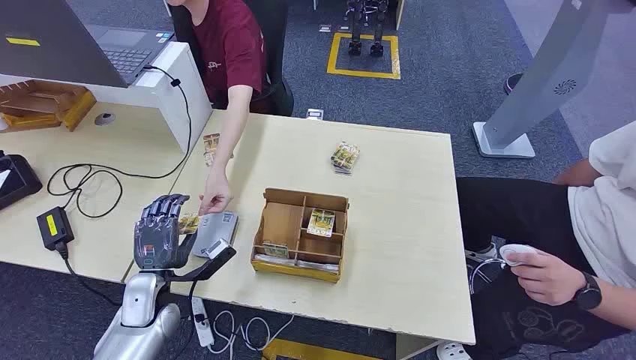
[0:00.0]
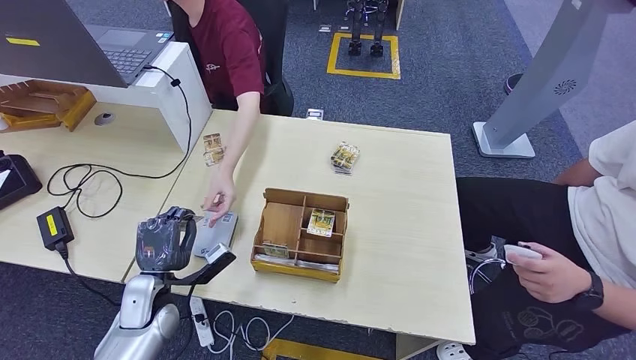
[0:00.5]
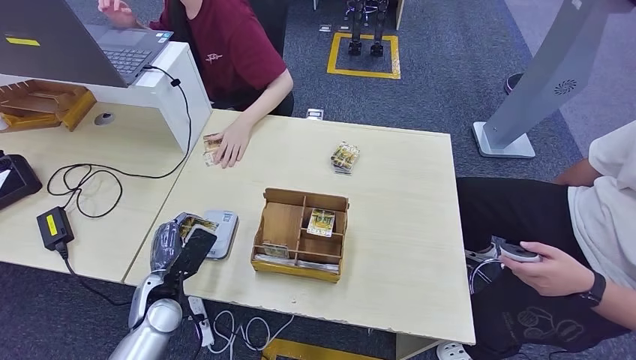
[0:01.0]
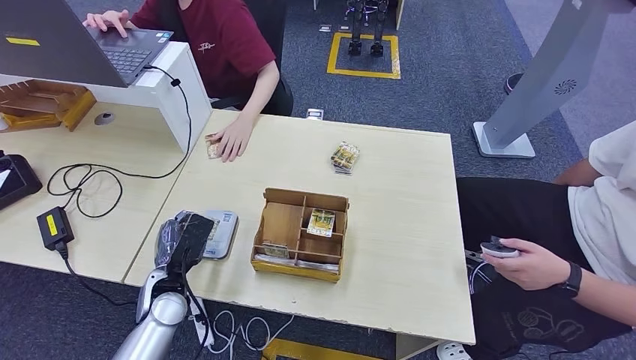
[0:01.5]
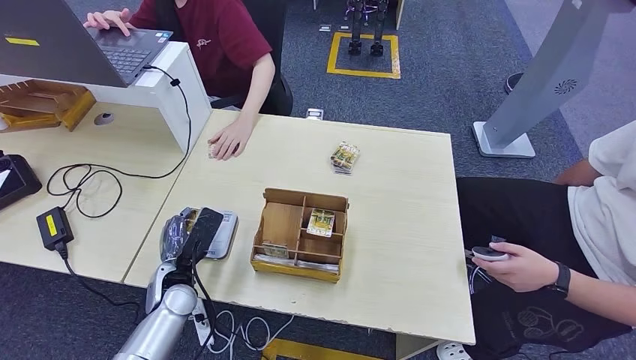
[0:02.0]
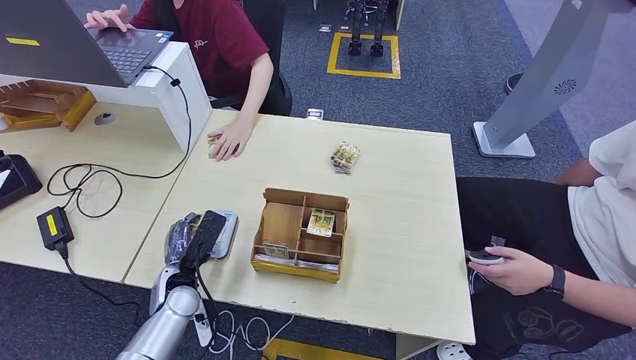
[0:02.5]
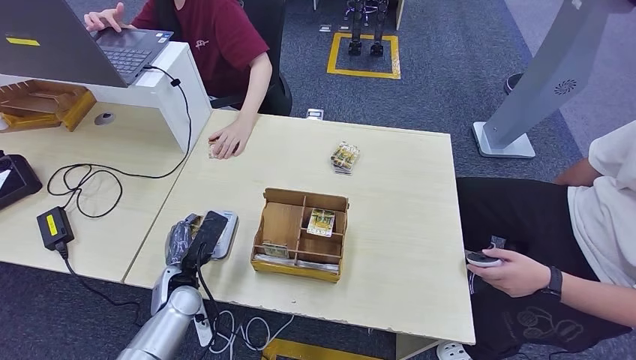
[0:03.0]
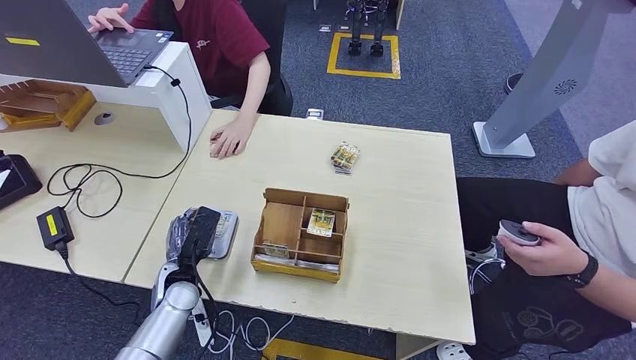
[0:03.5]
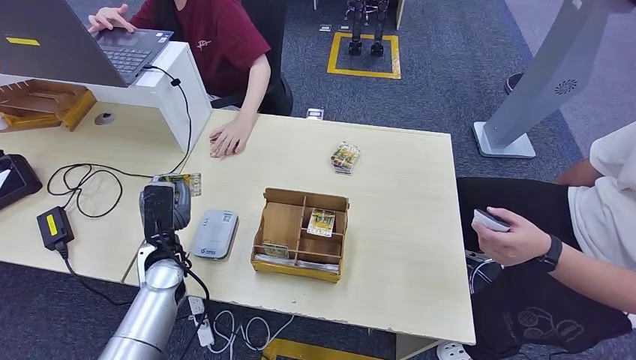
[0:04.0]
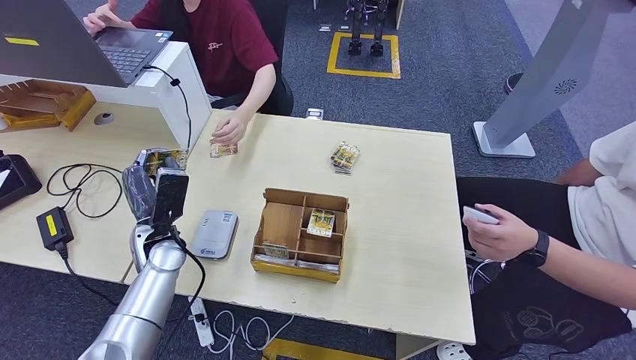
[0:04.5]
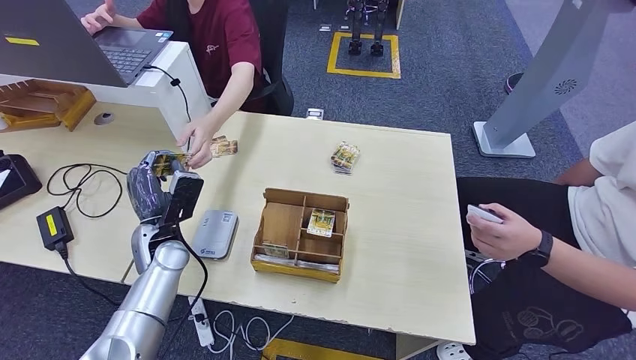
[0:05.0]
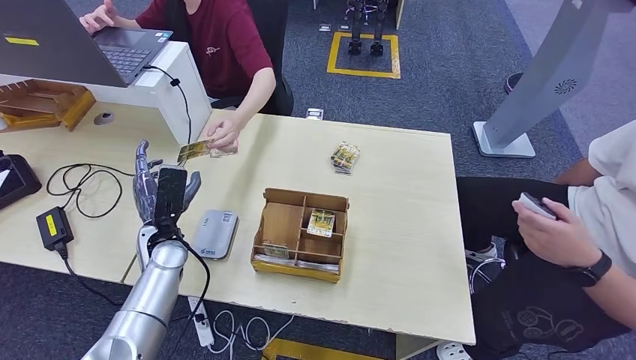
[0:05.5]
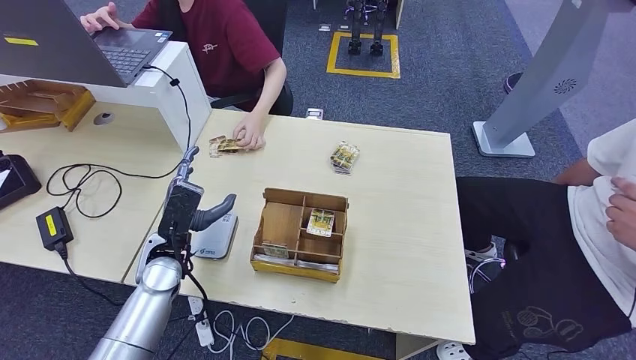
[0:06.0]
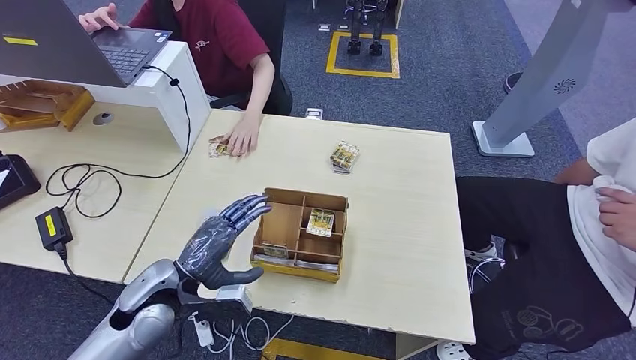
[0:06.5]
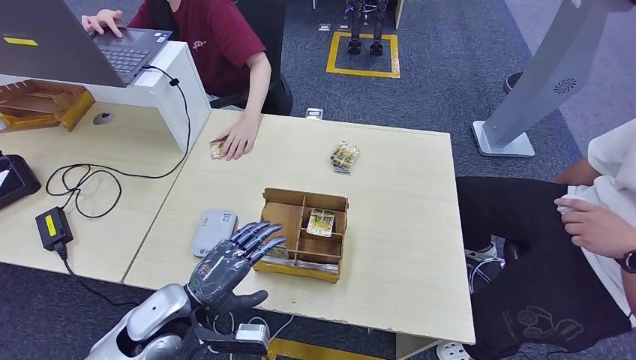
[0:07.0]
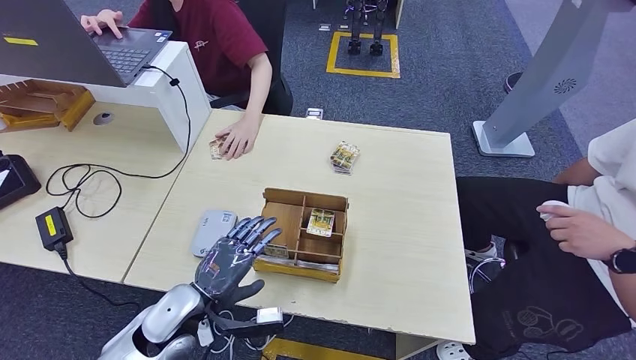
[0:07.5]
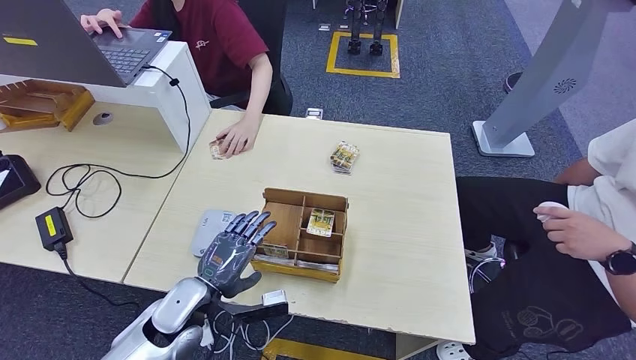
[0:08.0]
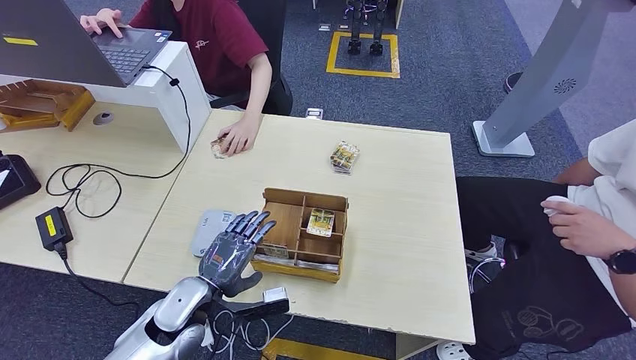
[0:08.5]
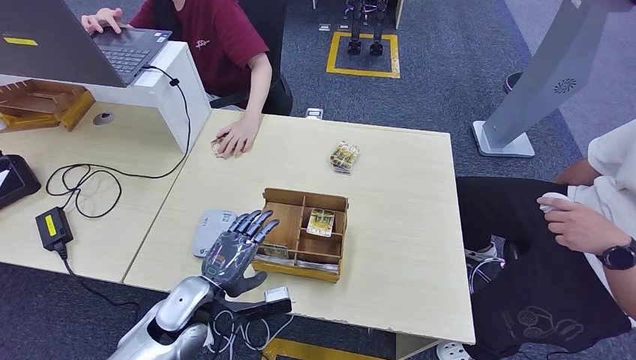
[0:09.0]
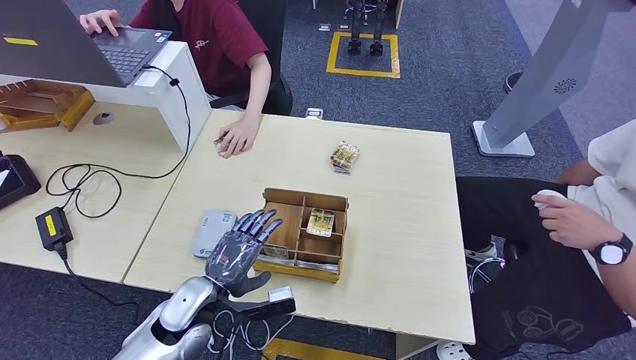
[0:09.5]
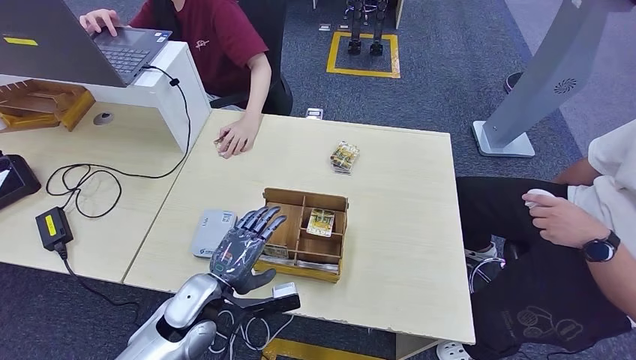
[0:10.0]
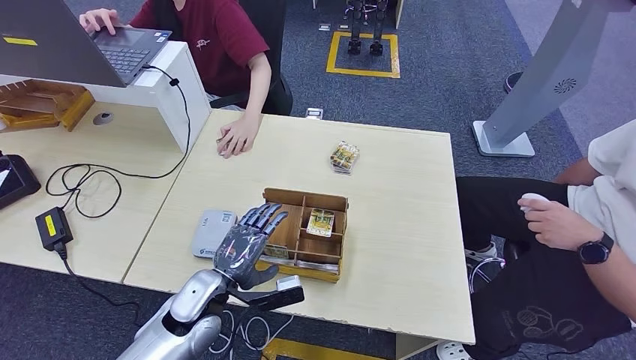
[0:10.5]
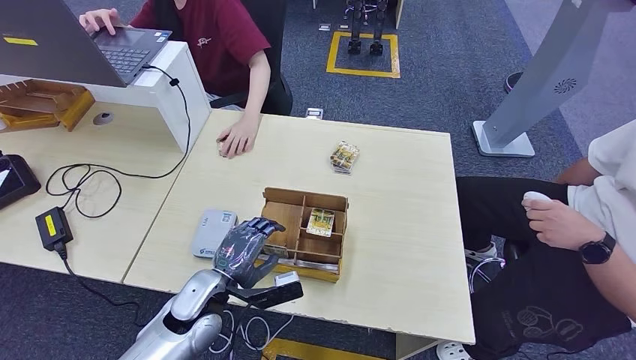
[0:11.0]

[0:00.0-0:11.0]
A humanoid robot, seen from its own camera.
Step, 0:00.0 to 0:00.5: Take the ID card from the person's hand.
Step, 0:01.0 to 0:03.0: Place the ID card on the card reader.
Step, 0:03.5 to 0:05.5: Hand the ID card to the person.
0:02.0 to 0:03.5: The hands stay close to where they were, moving slightly.
0:03.5 to 0:05.5: The left hand goes approximately 10 cm upward and forward.
0:05.5 to 0:07.5: The left hand is displaced backward and to the right by about 15 cm.
0:07.5 to 0:11.0: There are only small adjustments of the hands.

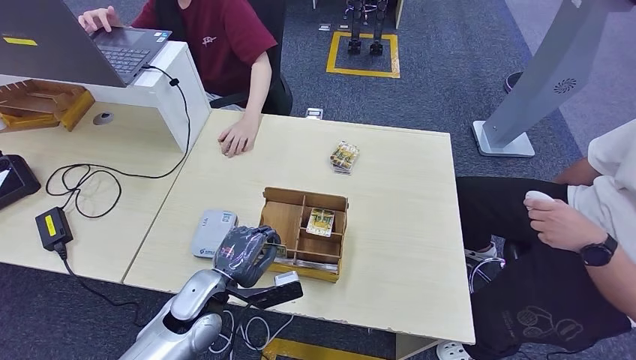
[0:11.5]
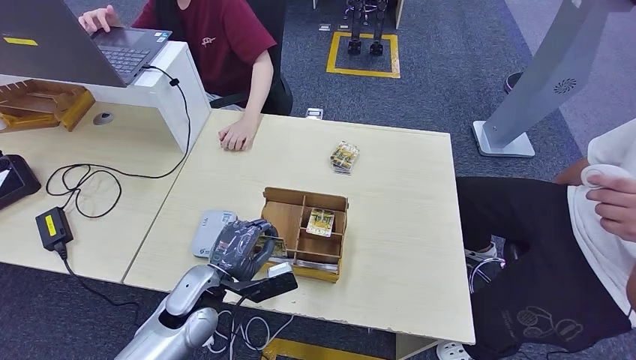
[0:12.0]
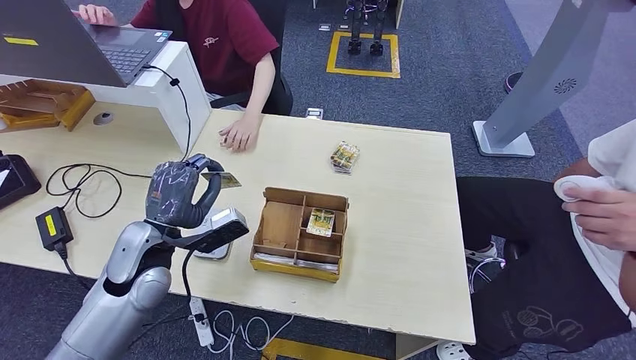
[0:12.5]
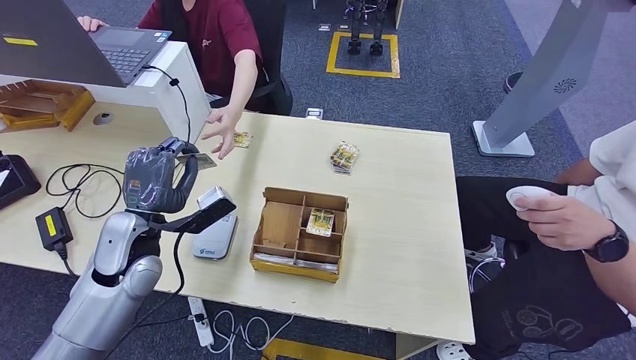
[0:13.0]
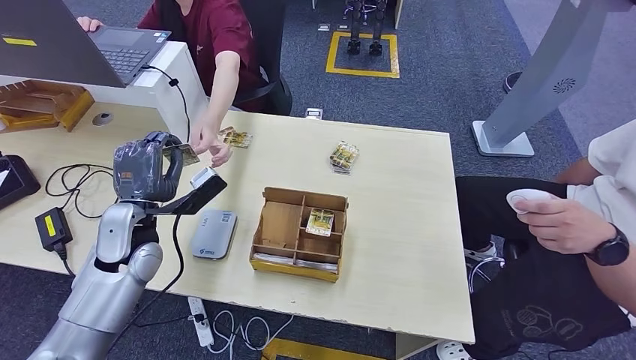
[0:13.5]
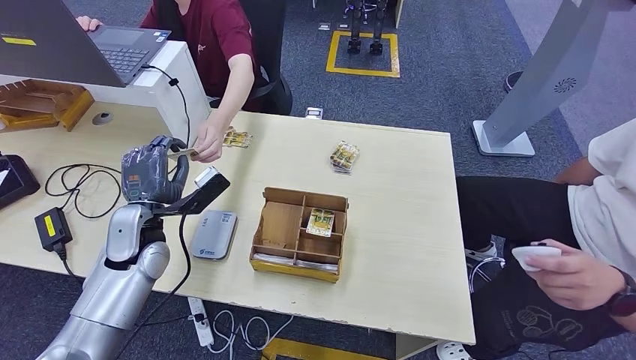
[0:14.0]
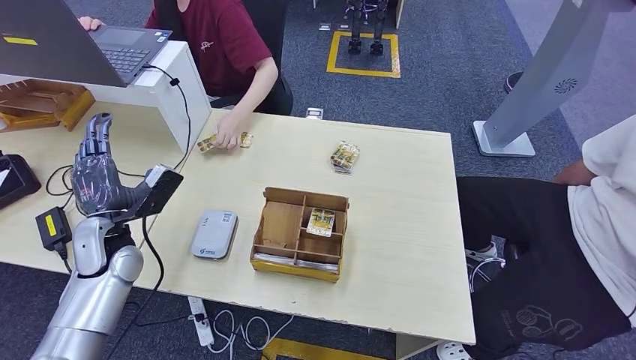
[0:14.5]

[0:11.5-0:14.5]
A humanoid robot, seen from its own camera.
Step, 0:12.5 to 0:14.5: Hand the room key to the person.
0:11.5 to 0:13.0: The left hand goes about 15 cm upward and to the left.
0:13.0 to 0:14.5: The left hand shifts approximately 5 cm to the left.
